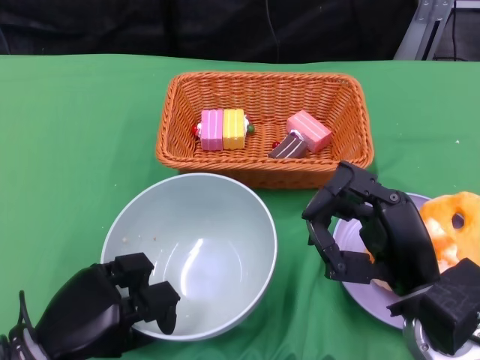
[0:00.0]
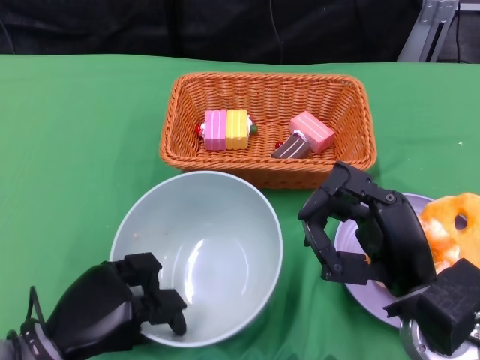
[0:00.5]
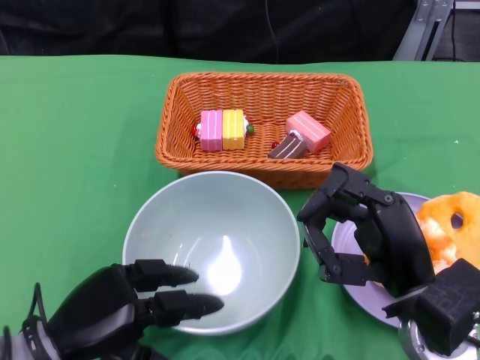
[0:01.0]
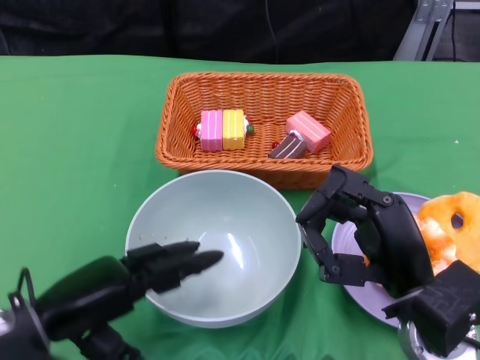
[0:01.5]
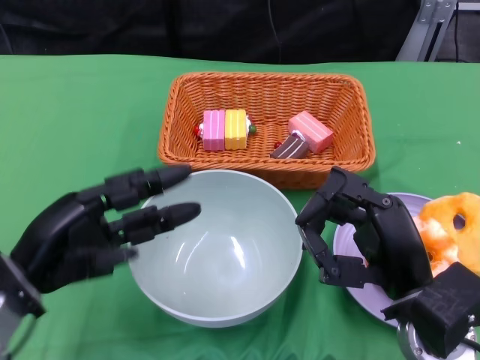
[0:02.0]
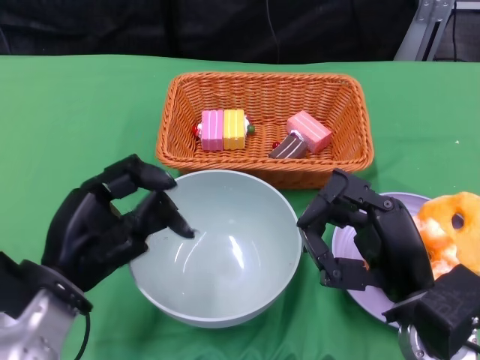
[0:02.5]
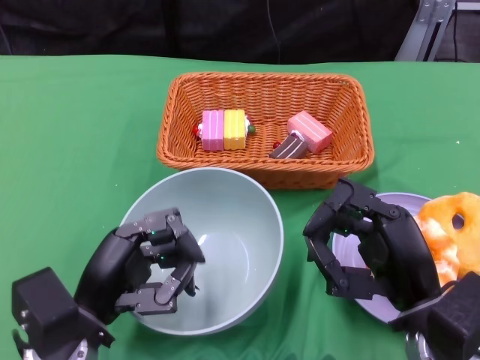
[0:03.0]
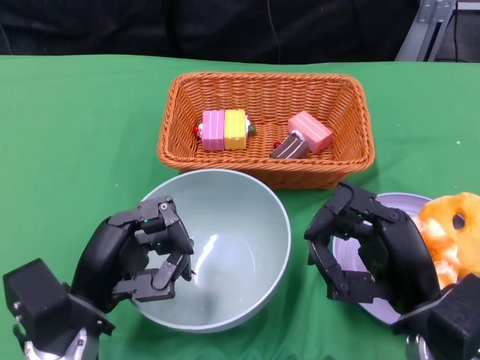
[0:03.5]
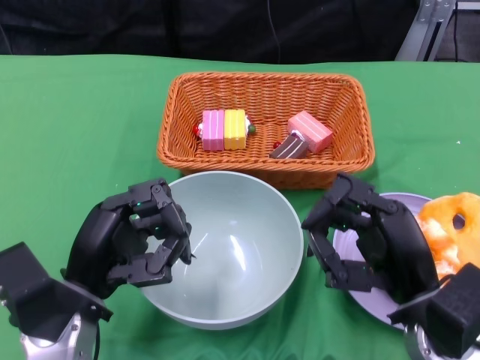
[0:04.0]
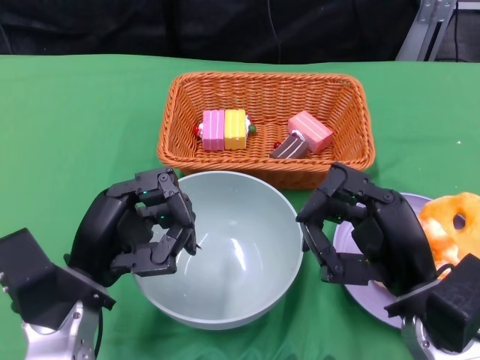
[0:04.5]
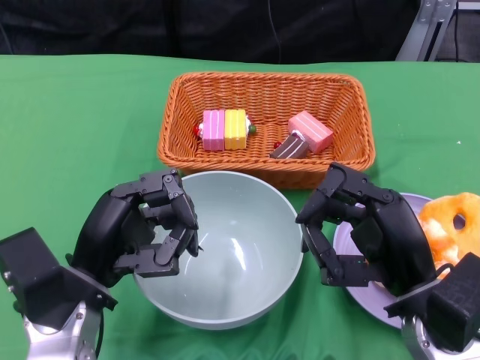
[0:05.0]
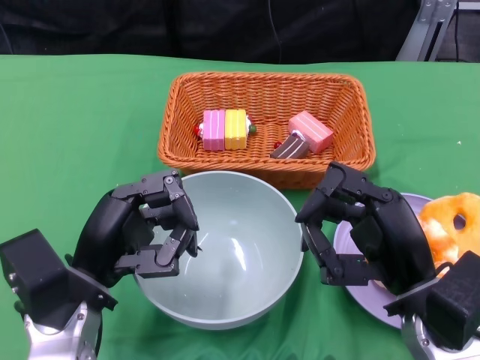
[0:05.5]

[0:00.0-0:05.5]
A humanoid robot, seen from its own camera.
0:00.0 to 0:02.0: The left hand heads upward, covering roughly 10 cm.
0:02.0 to 0:03.5: The left hand shifts roughly 10 cm to the right and downward.

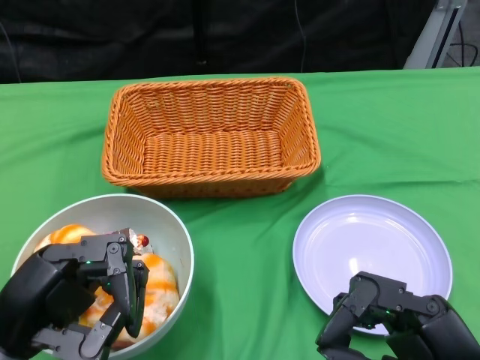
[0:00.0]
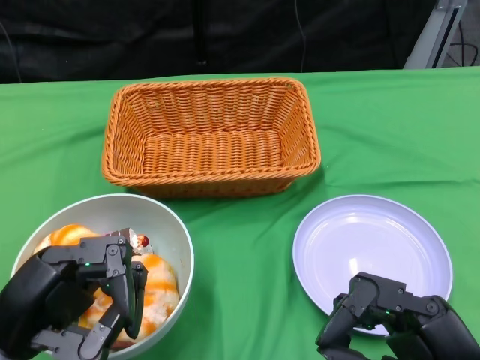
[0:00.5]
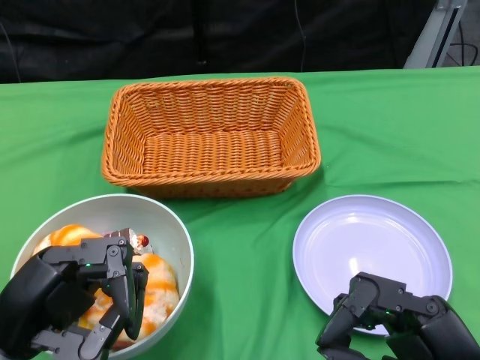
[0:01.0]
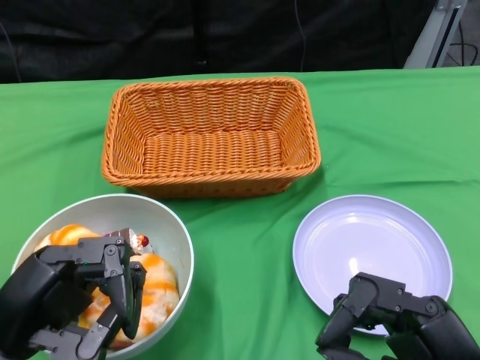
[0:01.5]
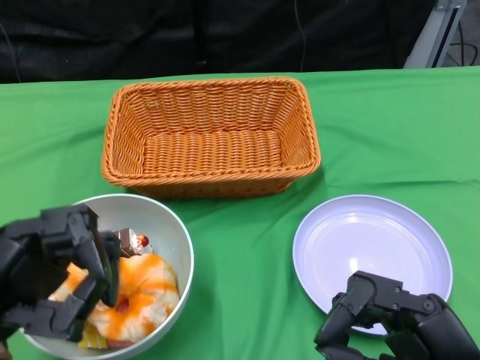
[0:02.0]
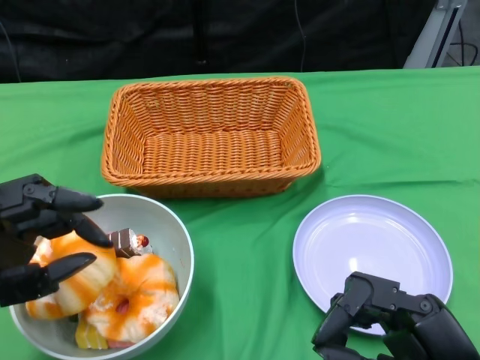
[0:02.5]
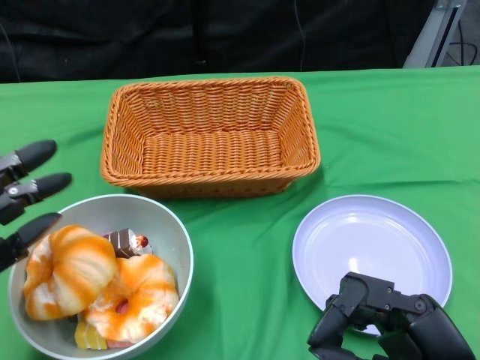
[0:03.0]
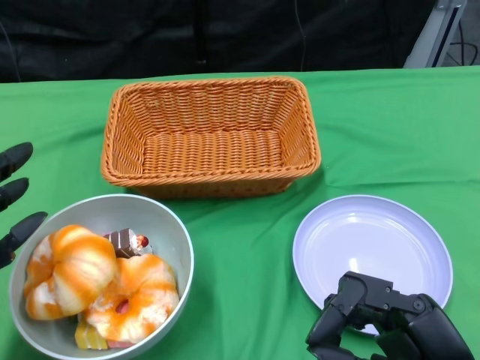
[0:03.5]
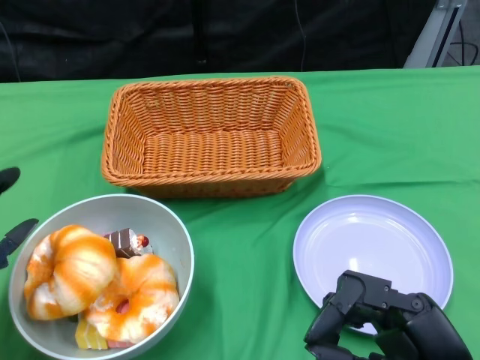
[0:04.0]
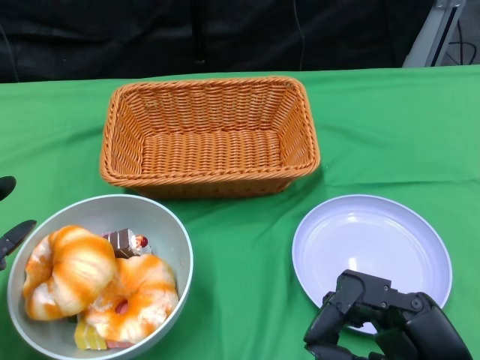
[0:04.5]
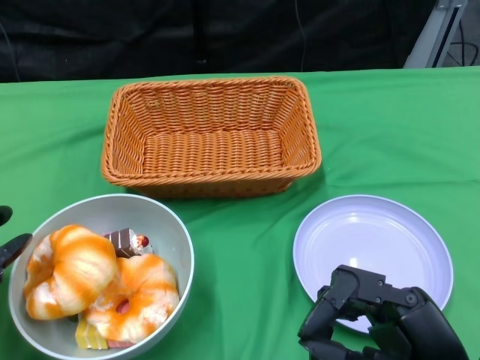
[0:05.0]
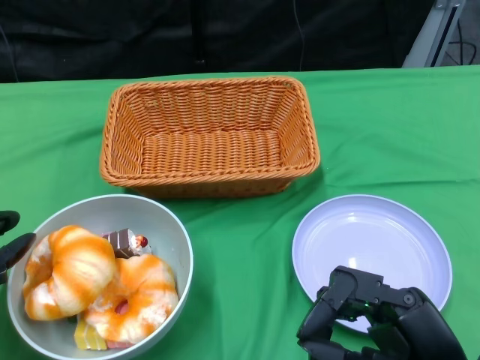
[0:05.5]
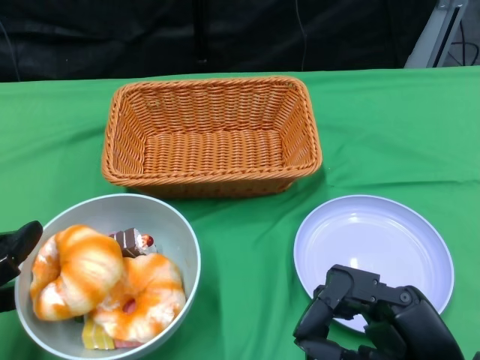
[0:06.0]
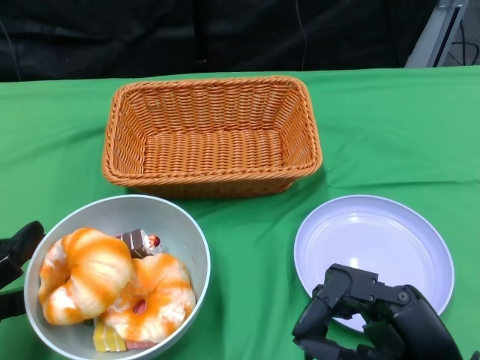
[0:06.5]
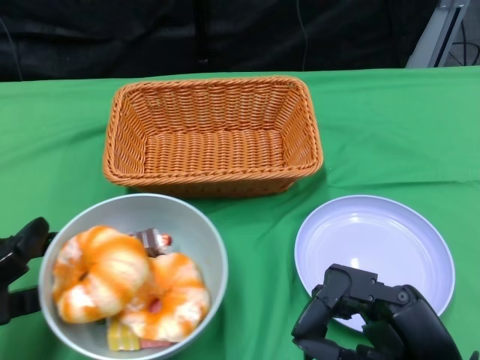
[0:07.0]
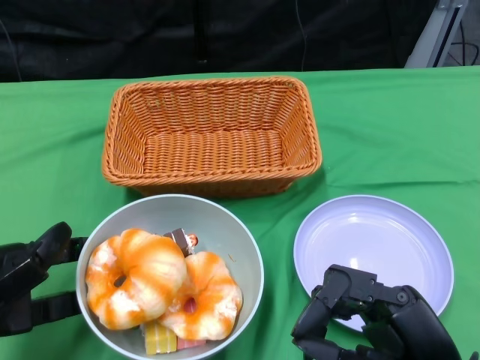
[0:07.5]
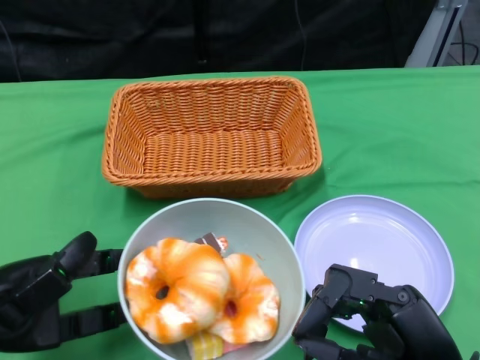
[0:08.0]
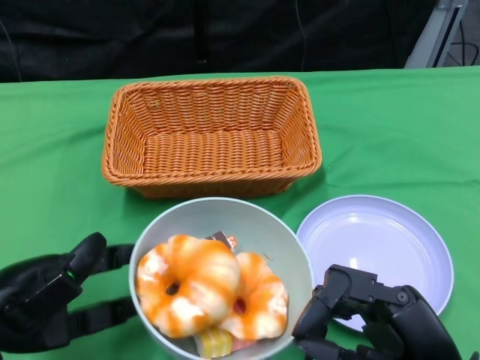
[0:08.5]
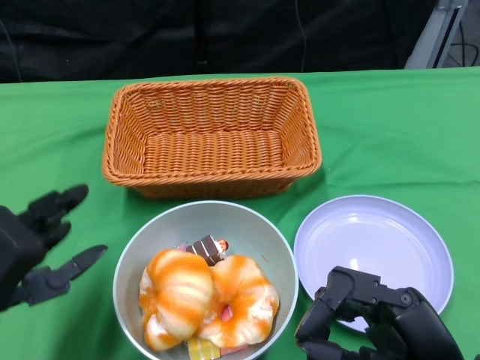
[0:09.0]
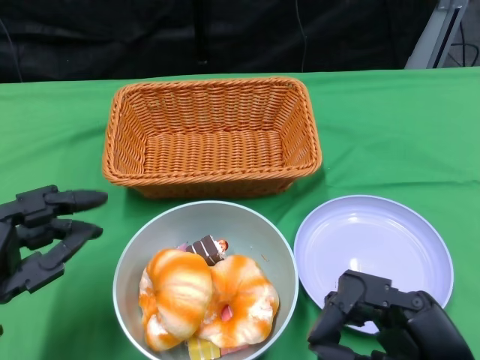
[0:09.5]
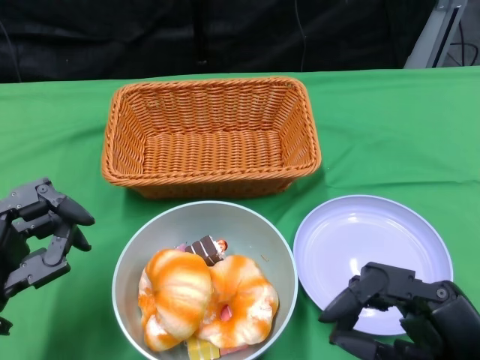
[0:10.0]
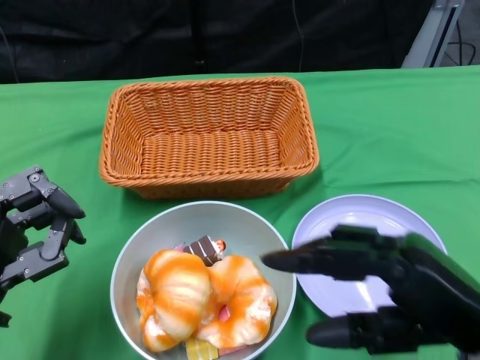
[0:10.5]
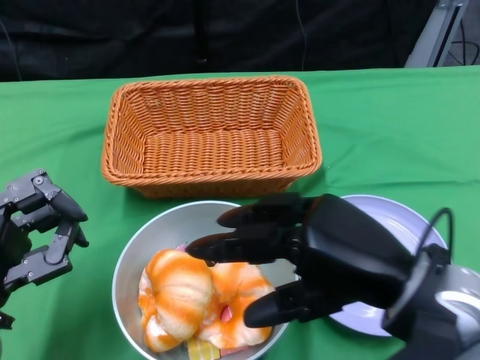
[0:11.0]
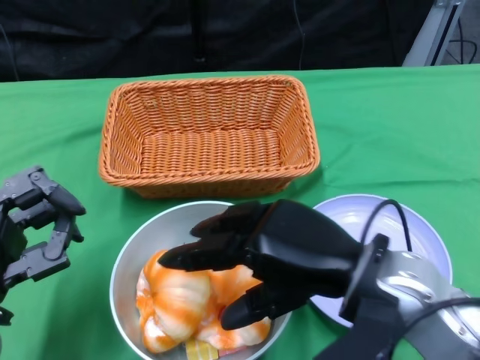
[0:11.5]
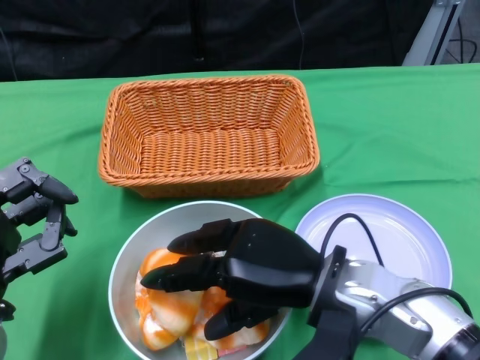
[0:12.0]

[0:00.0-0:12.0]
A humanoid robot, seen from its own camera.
Step, 0:00.0 to 0:09.0: Push the bowl to the center of the table using the left gripper.
0:02.0 to 0:04.0: The left hand ends up about 5 cm from where it was.
0:10.0 to 0:12.0: The right hand travels to the left and forward by some 15 cm.

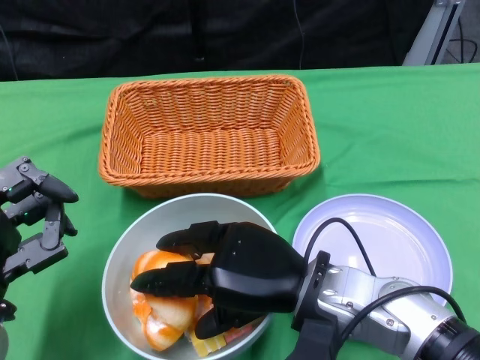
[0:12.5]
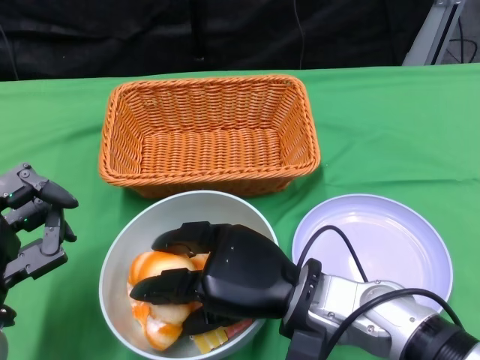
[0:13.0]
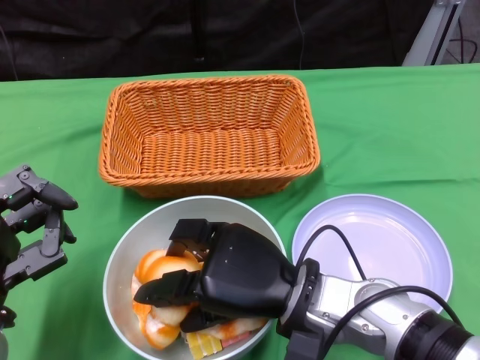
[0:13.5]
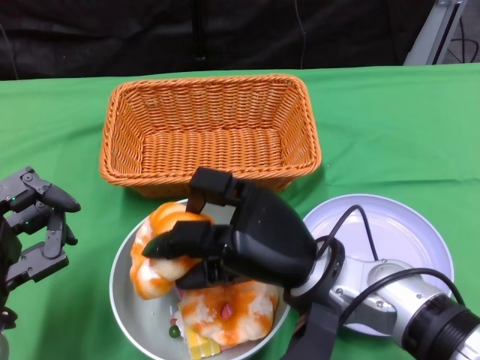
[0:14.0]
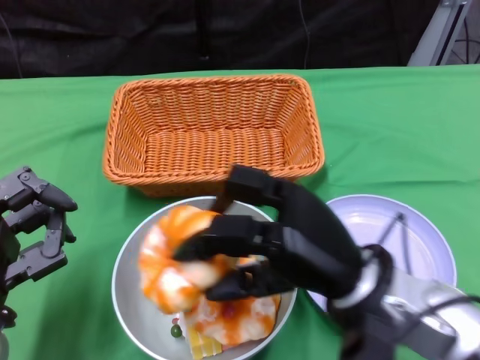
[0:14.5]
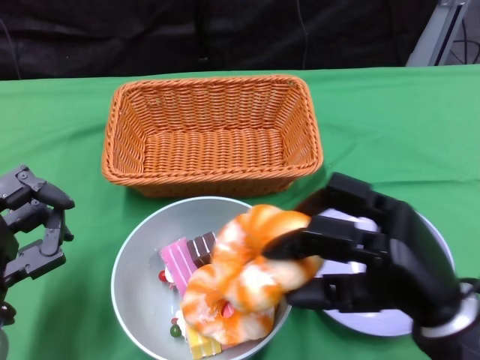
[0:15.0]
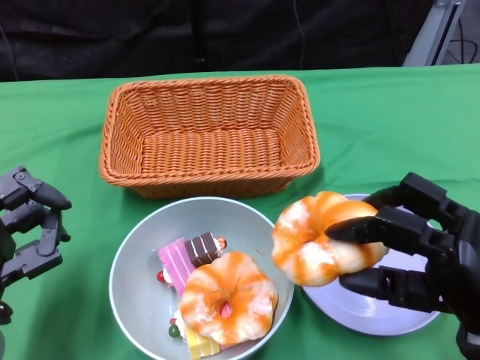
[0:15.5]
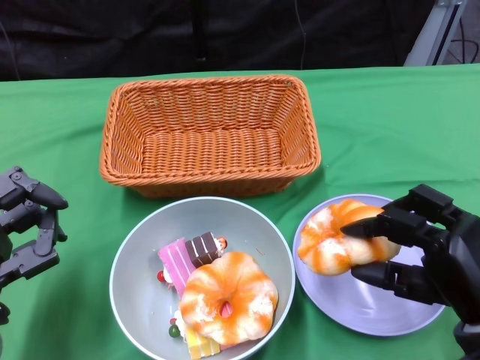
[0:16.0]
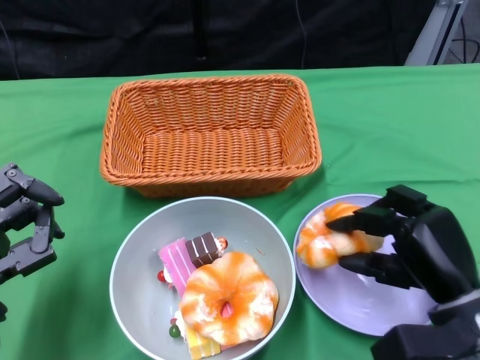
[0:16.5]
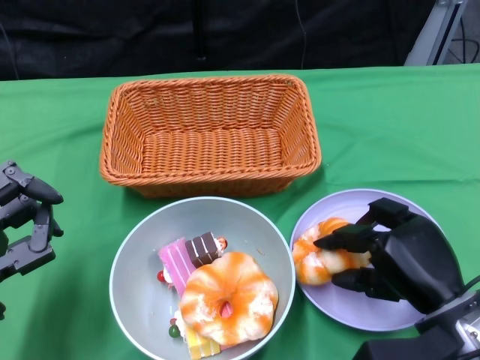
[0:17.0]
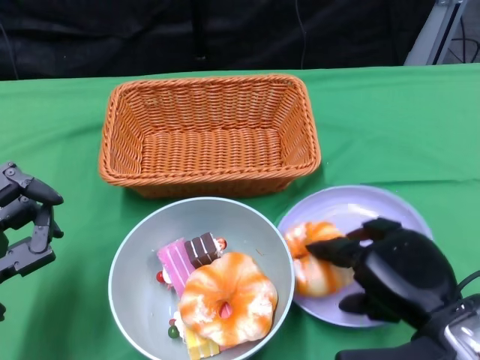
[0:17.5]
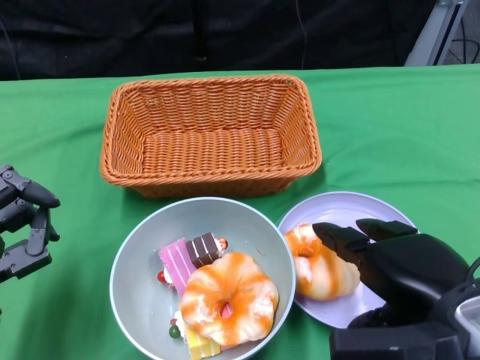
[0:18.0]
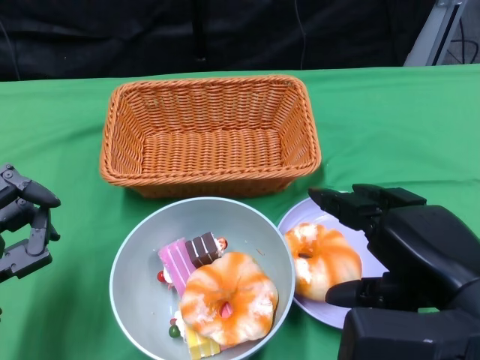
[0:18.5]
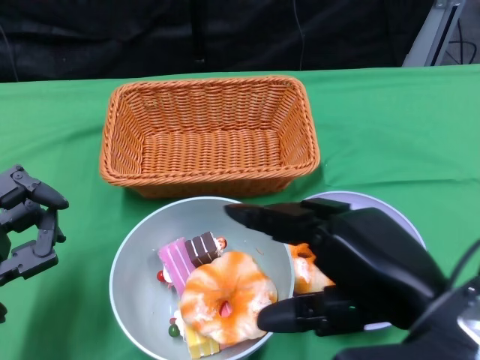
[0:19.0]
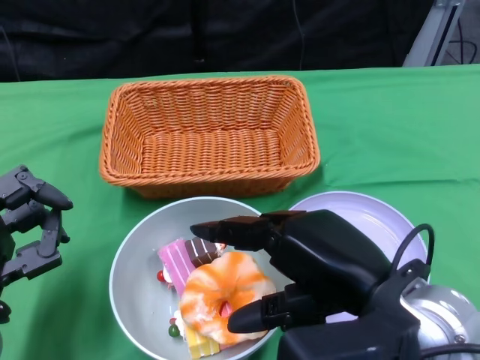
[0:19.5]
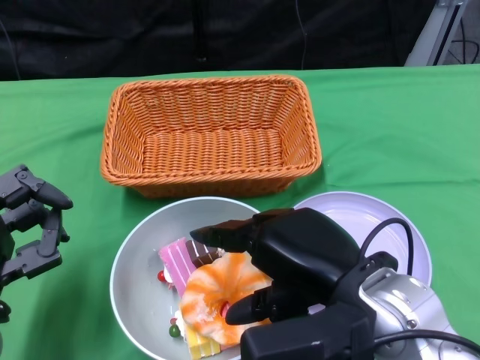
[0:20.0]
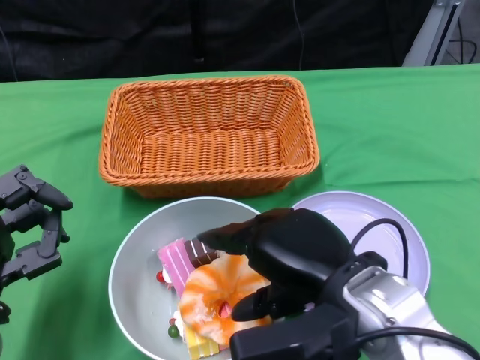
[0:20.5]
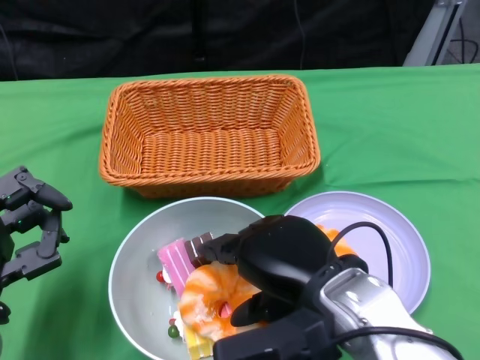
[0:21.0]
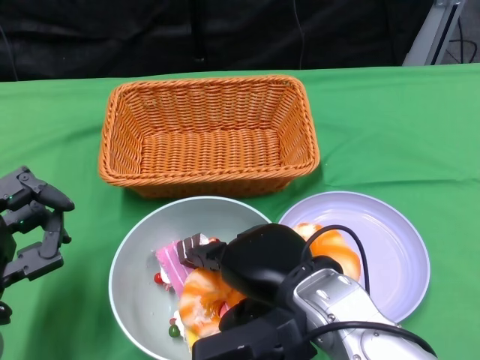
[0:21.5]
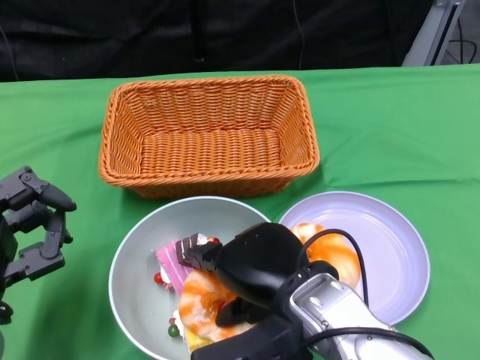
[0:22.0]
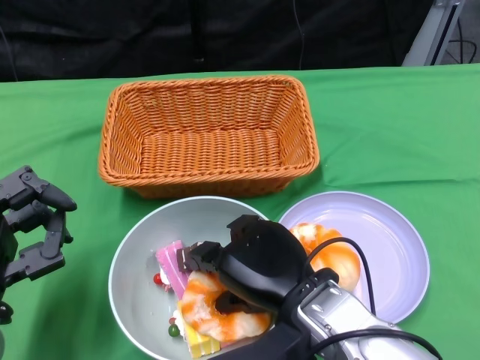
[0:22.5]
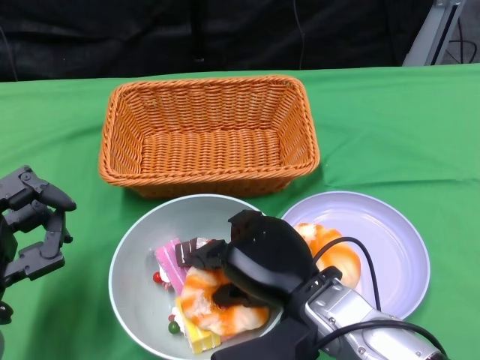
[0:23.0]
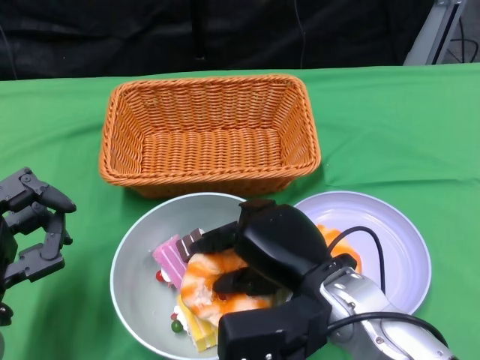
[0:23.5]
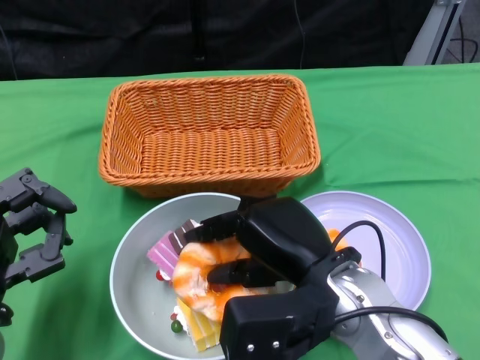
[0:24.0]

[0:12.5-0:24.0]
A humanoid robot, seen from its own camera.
0:14.5 to 0:16.5: The right hand is displaced to the right and downward by roughly 15 cm.
0:16.5 to 0:18.5: The right hand is displaced upward and backward by approximately 15 cm.
0:18.5 to 0:20.0: The right hand goes roughly 10 cm to the left.
0:20.0 to 0:22.0: The right hand moves some 5 cm.
